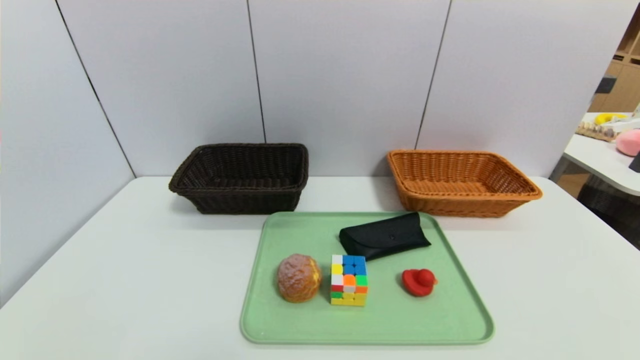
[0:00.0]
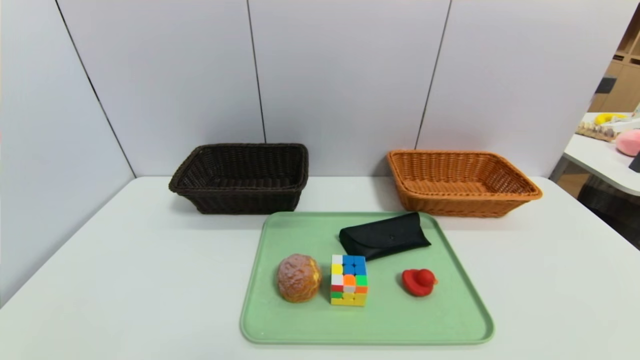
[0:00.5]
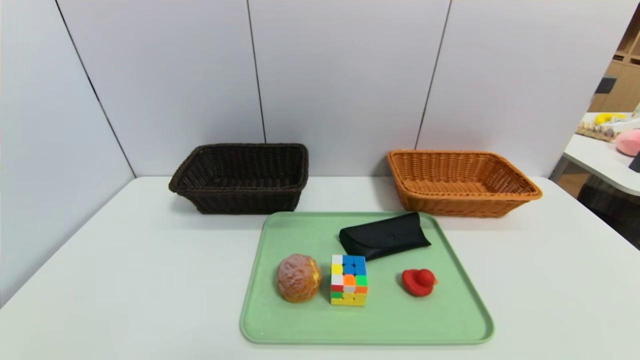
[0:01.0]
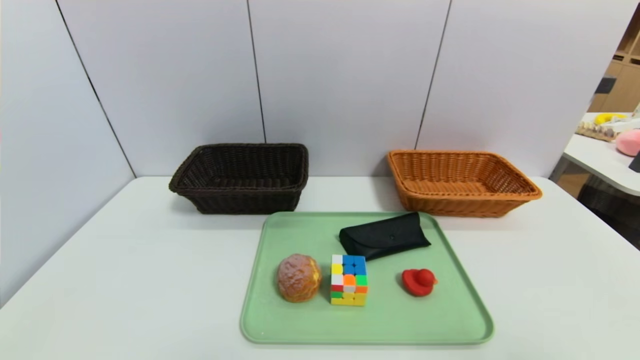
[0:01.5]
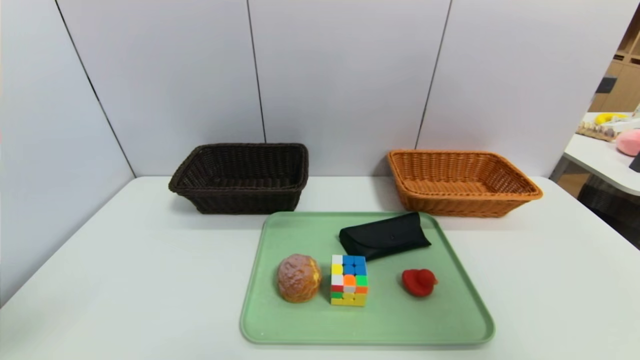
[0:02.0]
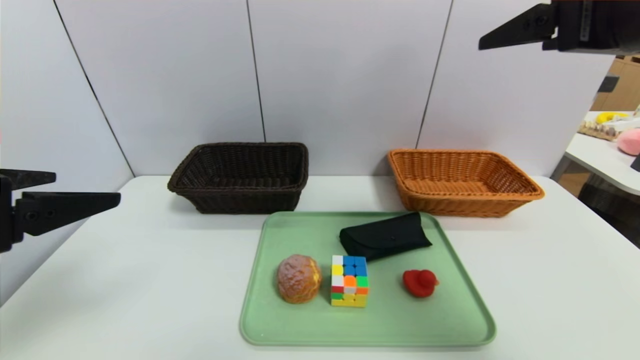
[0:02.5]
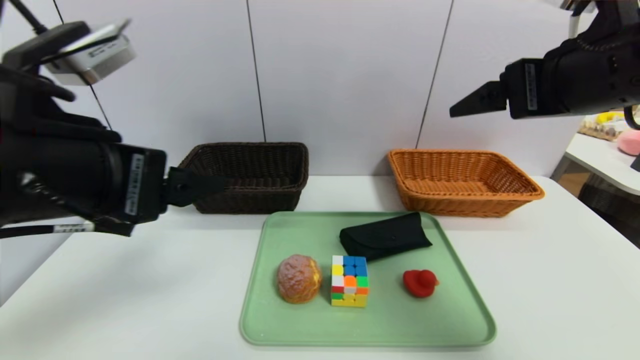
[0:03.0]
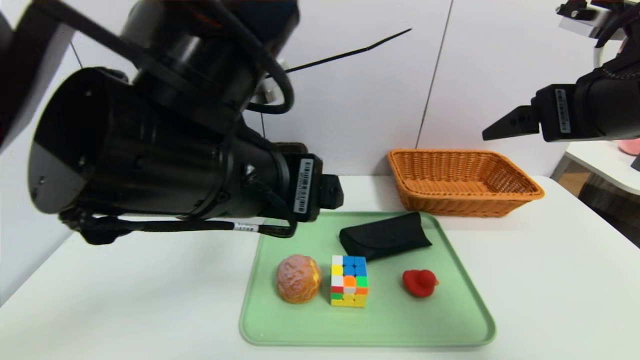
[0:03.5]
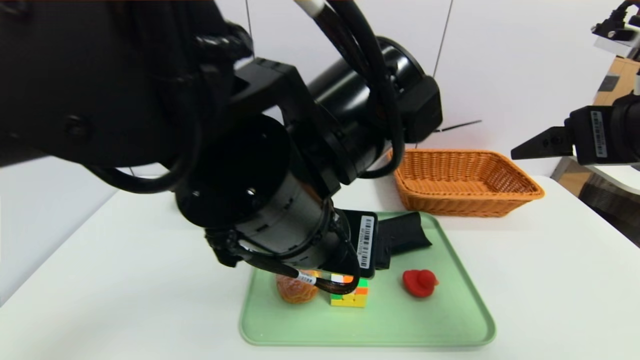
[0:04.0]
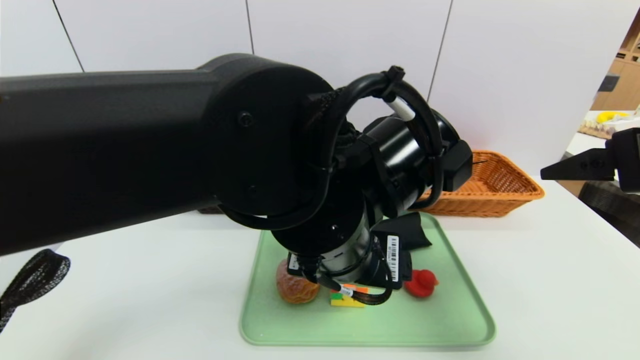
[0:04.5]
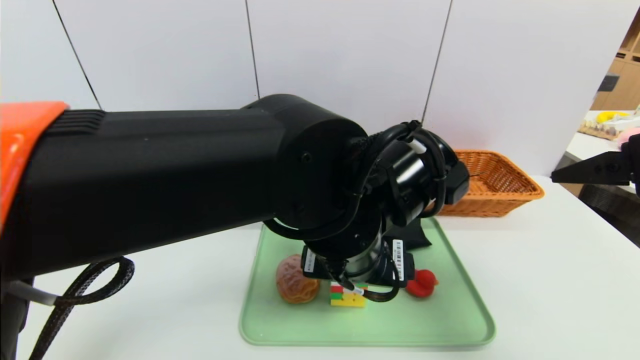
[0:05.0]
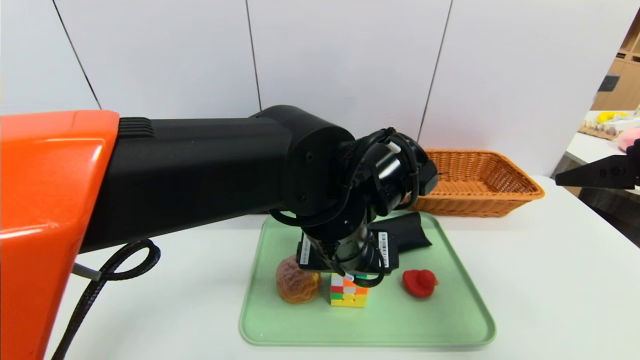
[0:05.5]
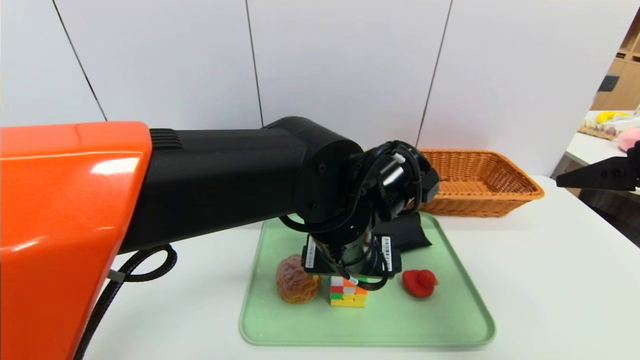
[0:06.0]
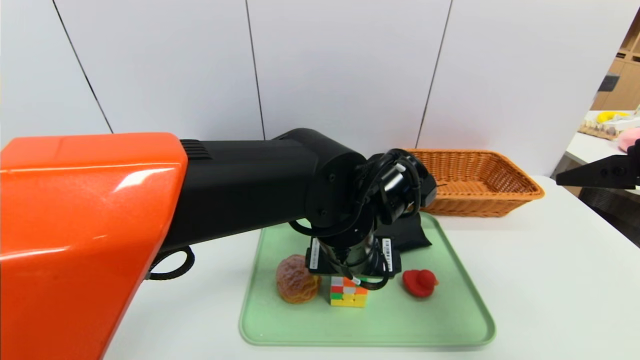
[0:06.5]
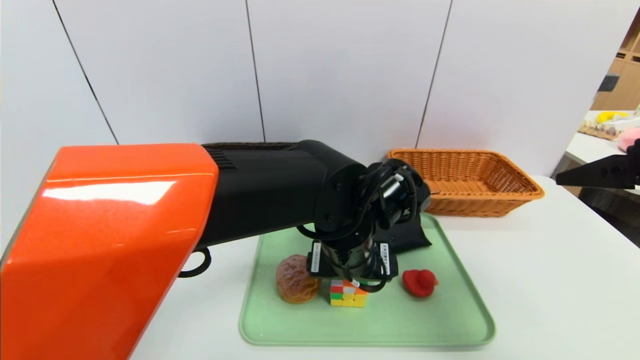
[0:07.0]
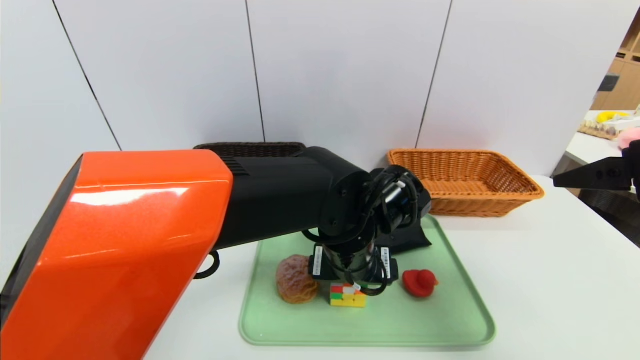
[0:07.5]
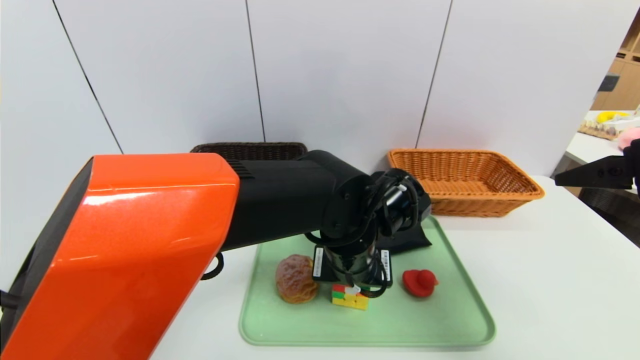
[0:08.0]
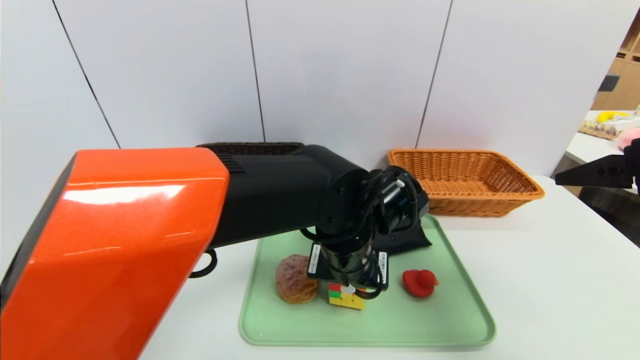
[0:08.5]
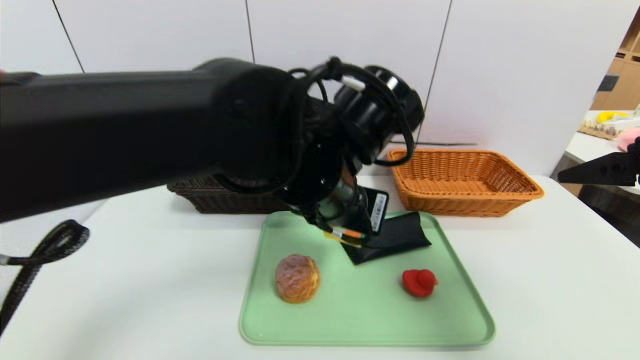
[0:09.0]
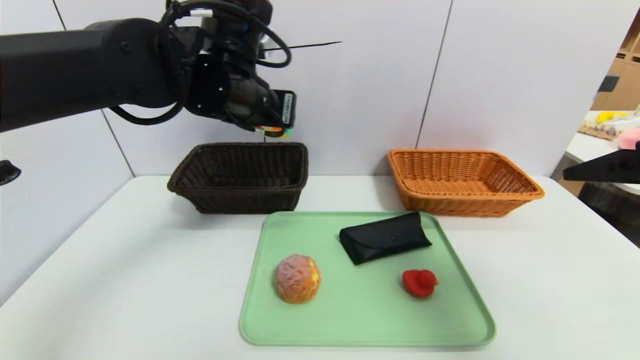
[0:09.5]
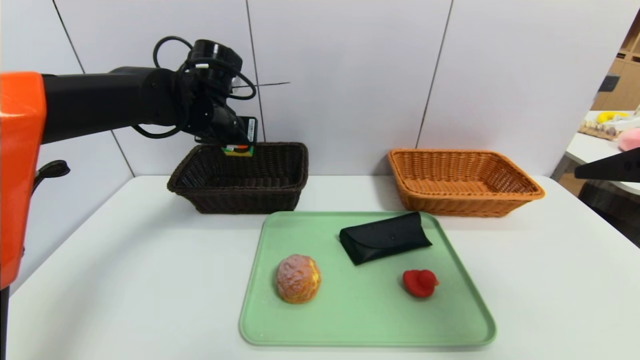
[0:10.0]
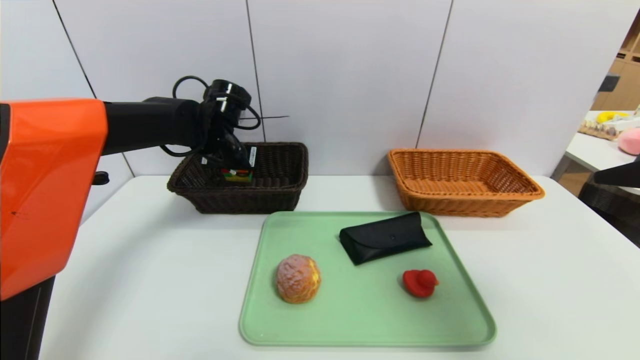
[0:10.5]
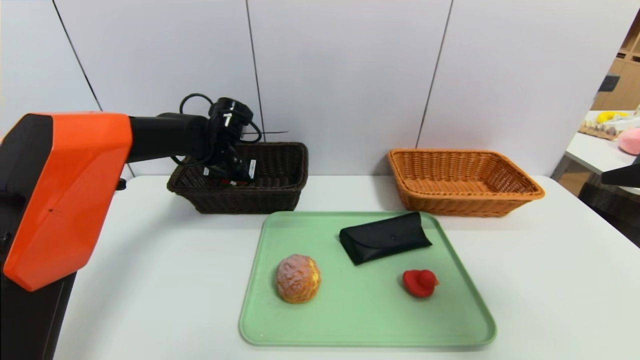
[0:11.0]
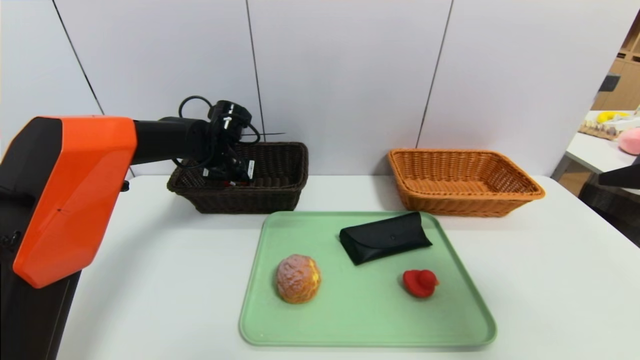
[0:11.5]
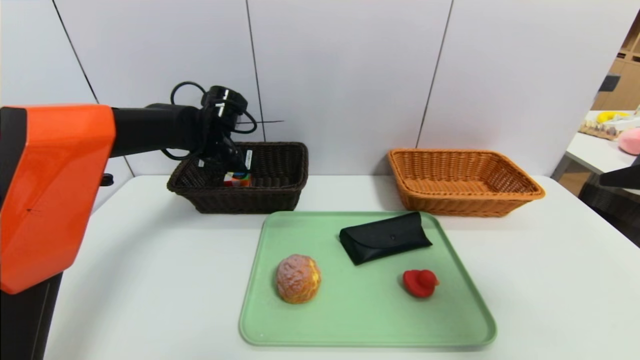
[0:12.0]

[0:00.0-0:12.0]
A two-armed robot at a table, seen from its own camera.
Task of the whole recording: place the food in the right basket with the right gripper, and place the non food items in the left basket with the left gripper.
Step, 0:00.0 to 0:12.0: Grasp the rubiks cube and put it in the left basket.
0:00.0 to 0:02.0: Both grippers move upward, roughly 30 cm.
0:02.0 to 0:04.0: The right gripper travels downward, forward and to the left by approximately 15 cm. The left gripper goes roughly 30 cm to the right and forward.
0:04.0 to 0:06.0: The left gripper travels downward and forward by approximately 10 cm.
0:06.0 to 0:08.0: The left gripper closes up.
0:08.0 to 0:10.0: The left gripper shifts some 25 cm to the left, forward and upward.
0:10.0 to 0:12.0: The left gripper heads downward, covering about 5 cm, and opens its fingers.

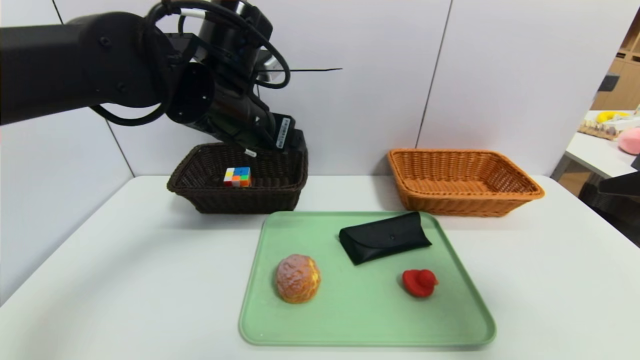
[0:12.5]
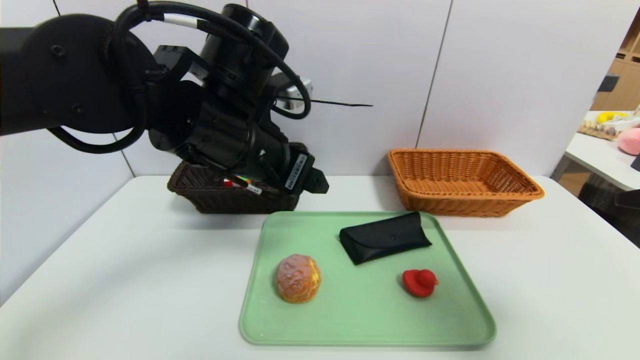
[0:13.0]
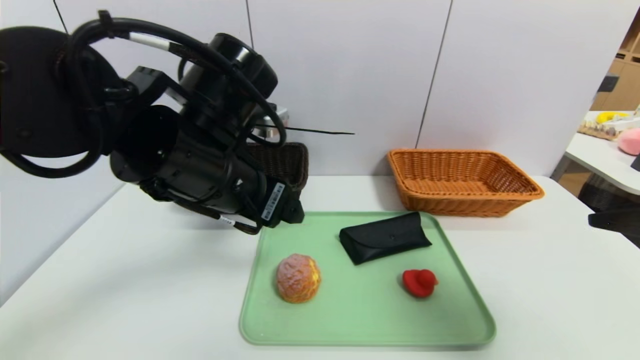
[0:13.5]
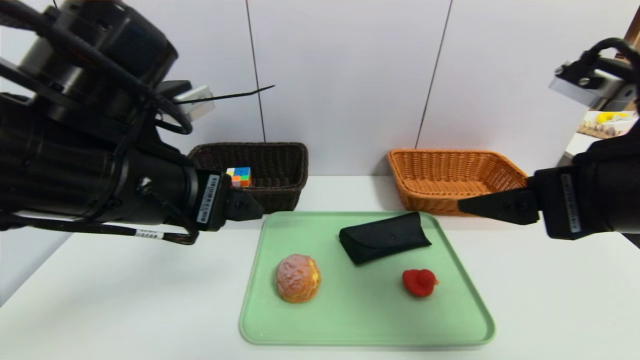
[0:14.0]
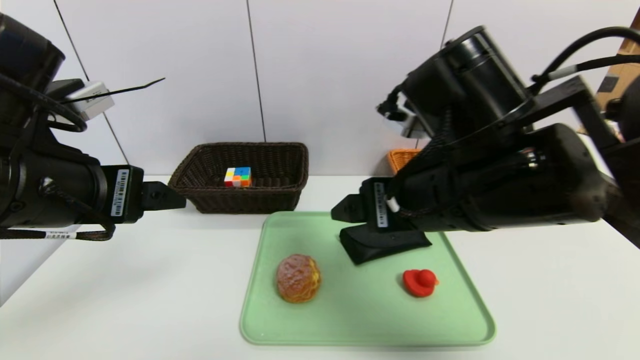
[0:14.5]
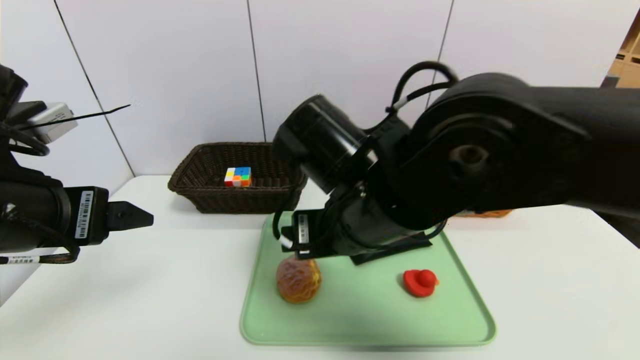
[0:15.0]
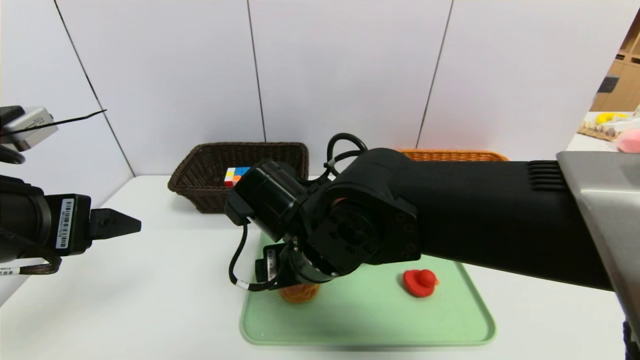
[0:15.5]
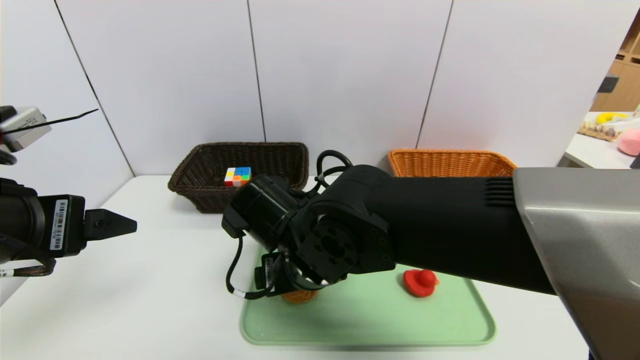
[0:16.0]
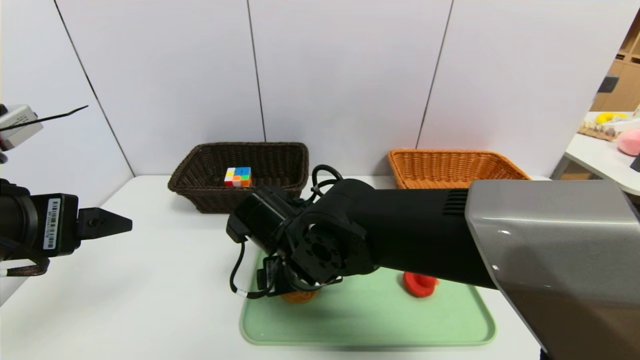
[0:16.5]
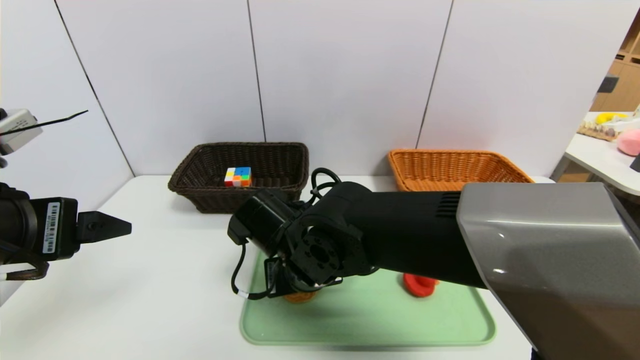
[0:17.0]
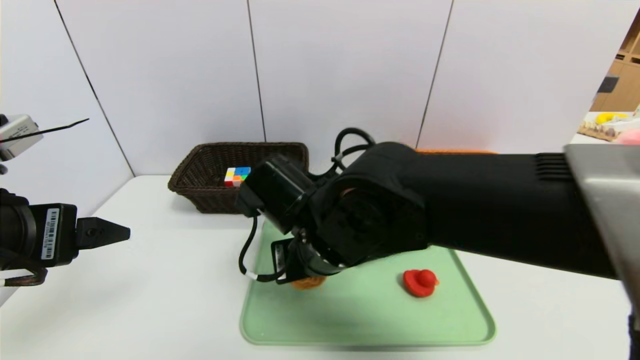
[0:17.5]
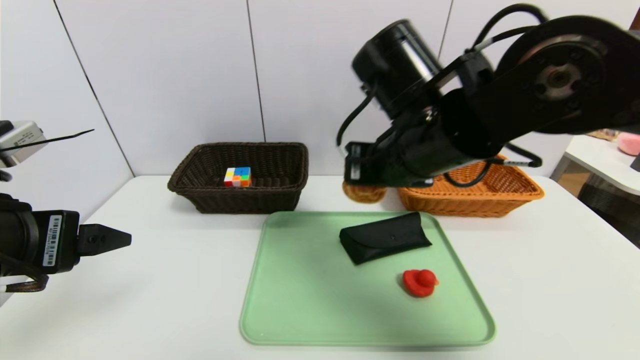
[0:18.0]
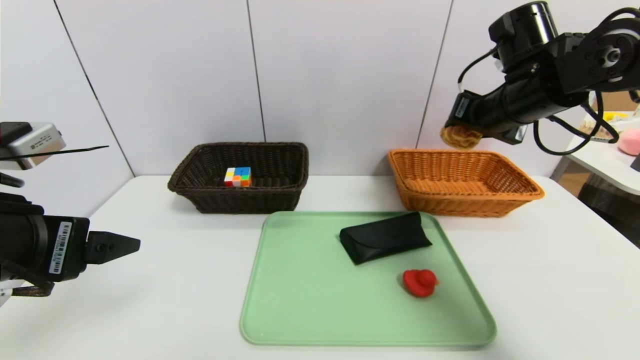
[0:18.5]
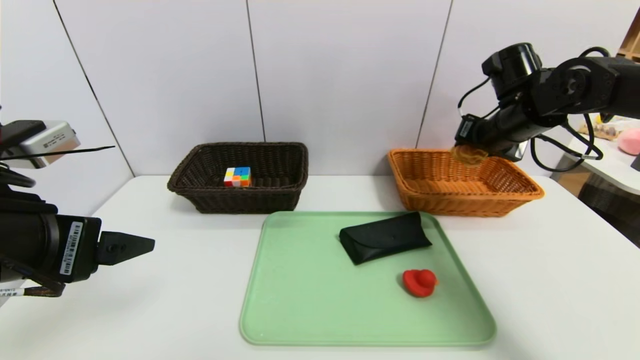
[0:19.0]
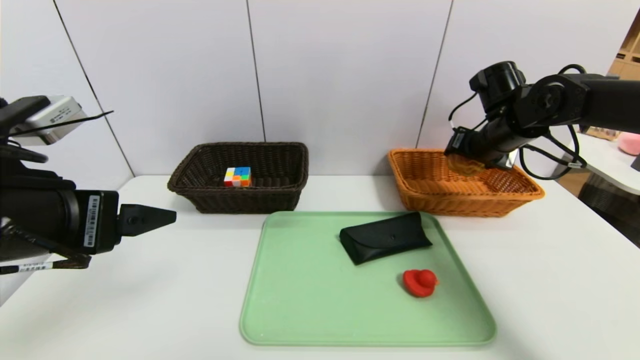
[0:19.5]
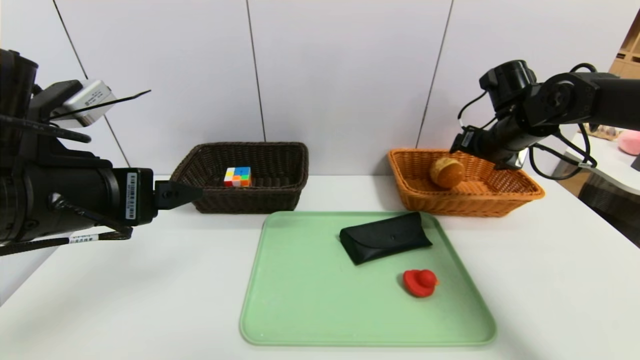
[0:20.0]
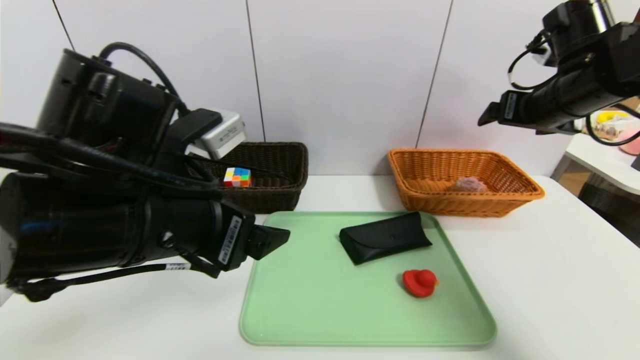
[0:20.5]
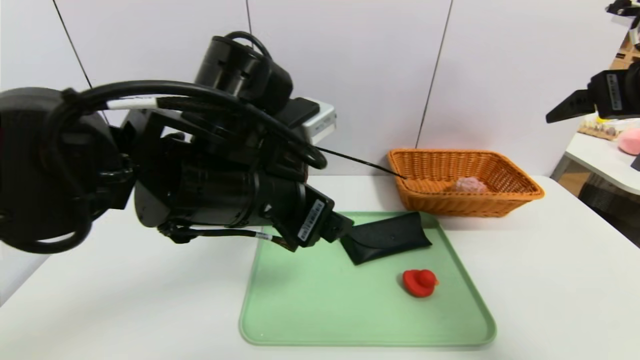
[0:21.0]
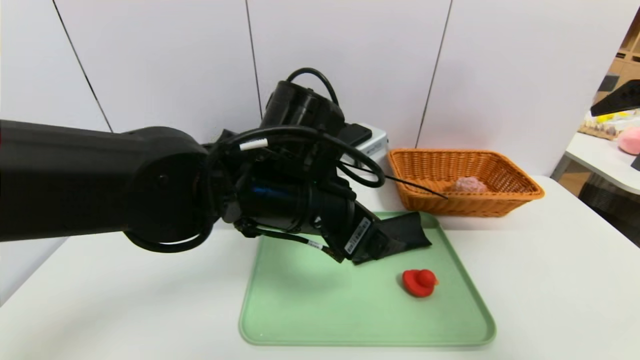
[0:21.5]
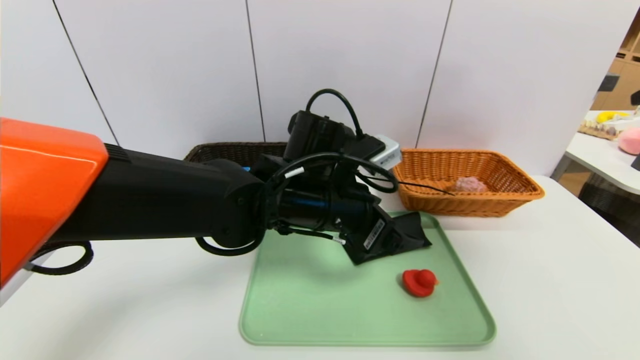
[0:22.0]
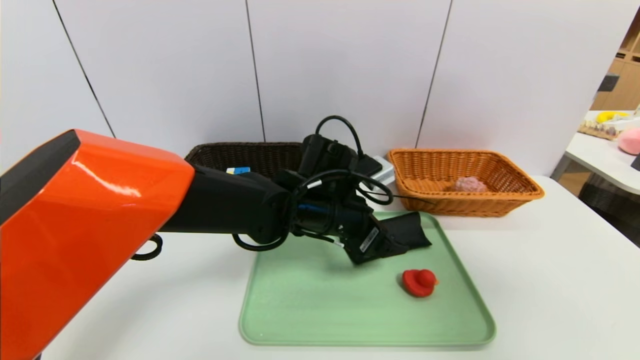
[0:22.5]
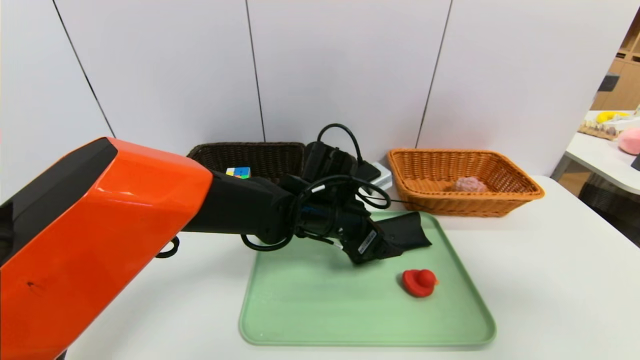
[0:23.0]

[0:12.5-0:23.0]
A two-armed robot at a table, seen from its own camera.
Task of the whole recording: place the food in the right basket with the right gripper, and place the non food items in the left basket with the left gripper.
Step, 0:12.5 to 0:19.5: Grasp the round bread and put it in the right basket.
0:12.5 to 0:14.5: The right gripper goes some 20 cm to the left and forward, while the left gripper moves backward and to the left, roughly 20 cm.
0:14.5 to 0:16.5: The right gripper moves to the left and downward, some 20 cm.
0:16.5 to 0:19.0: The right gripper goes some 35 cm to the right and forward, and closes up.
0:19.0 to 0:21.0: The right gripper travels backward and upward by some 20 cm, and opens up, while the left gripper shifts approximately 20 cm to the right and forward.
0:21.0 to 0:23.0: The right gripper shifts some 10 cm backward, while the left gripper shifts roughly 20 cm downward, forward and to the right.
